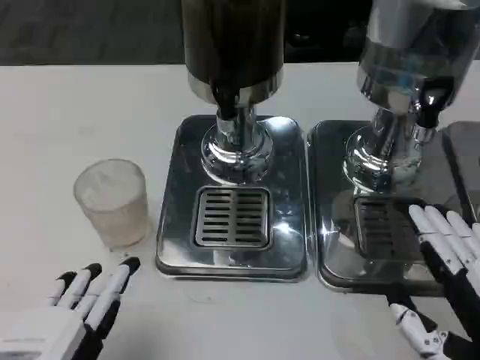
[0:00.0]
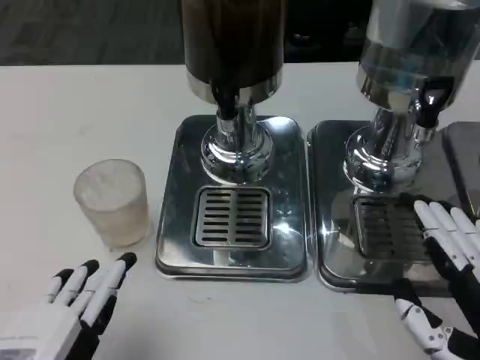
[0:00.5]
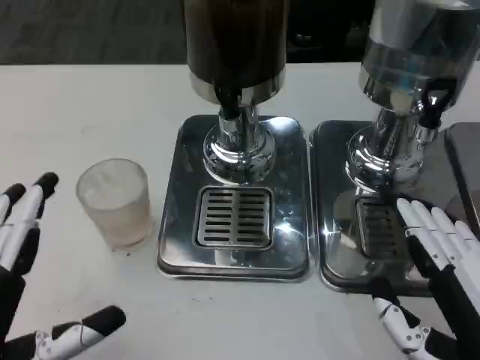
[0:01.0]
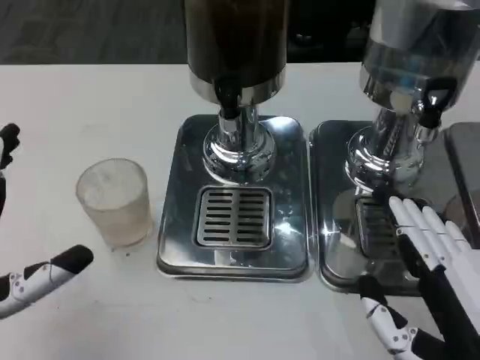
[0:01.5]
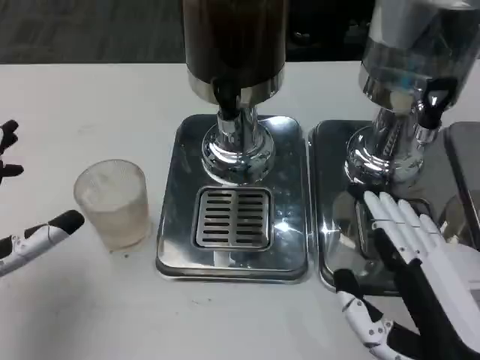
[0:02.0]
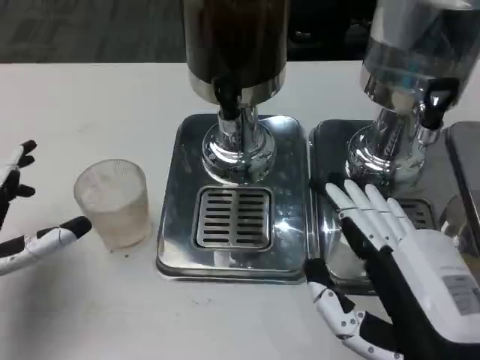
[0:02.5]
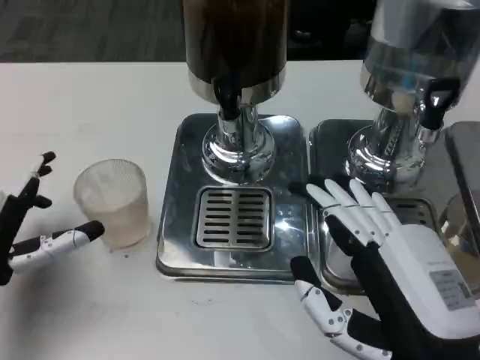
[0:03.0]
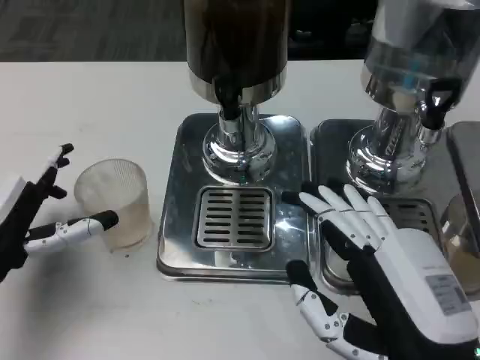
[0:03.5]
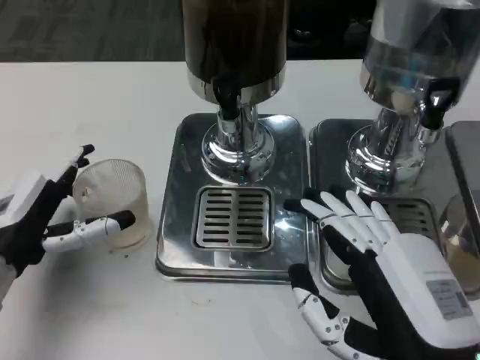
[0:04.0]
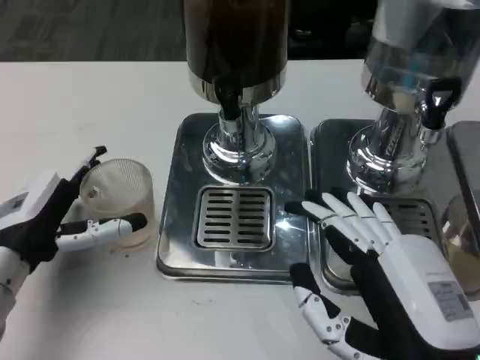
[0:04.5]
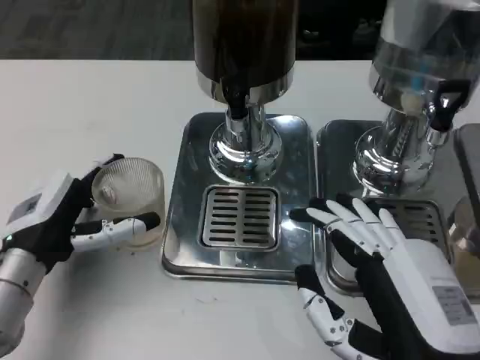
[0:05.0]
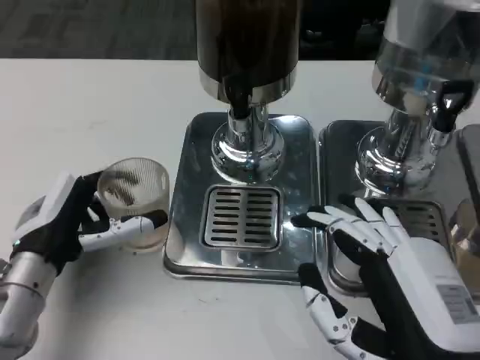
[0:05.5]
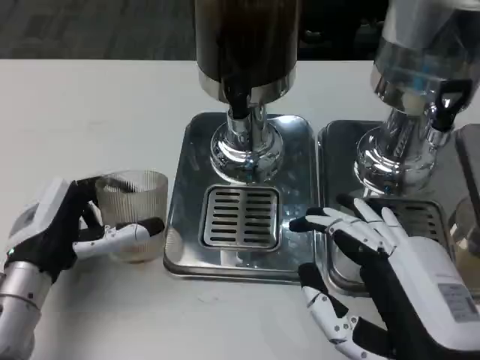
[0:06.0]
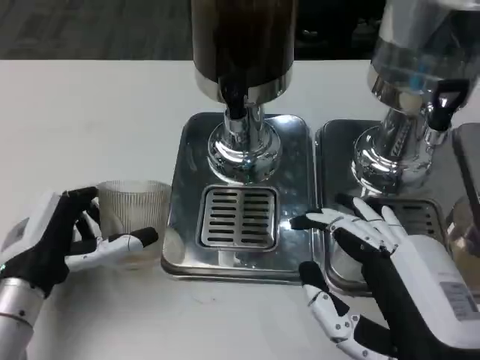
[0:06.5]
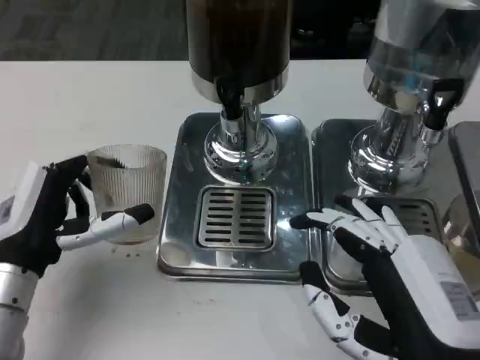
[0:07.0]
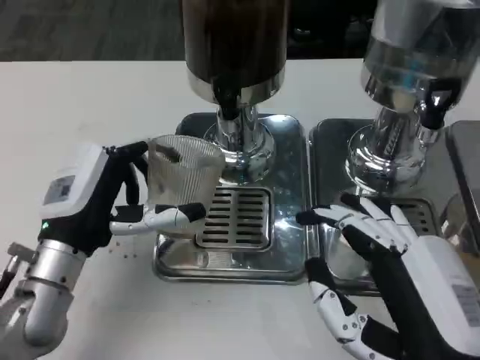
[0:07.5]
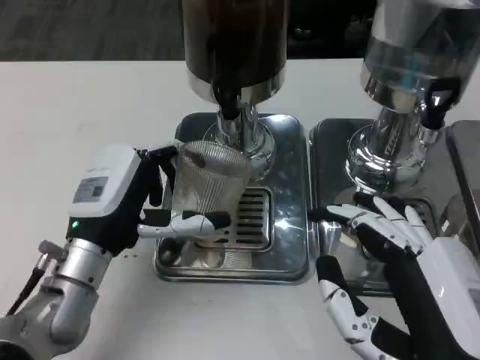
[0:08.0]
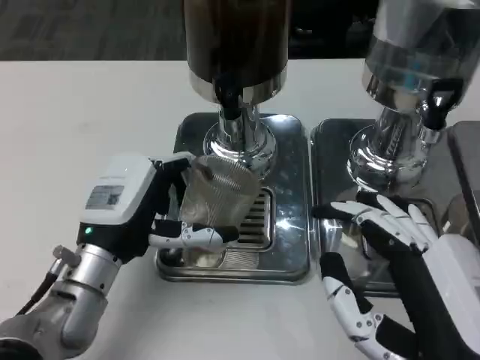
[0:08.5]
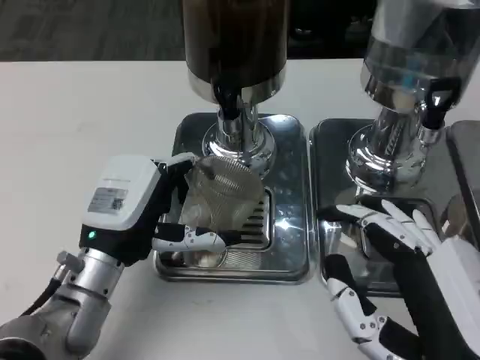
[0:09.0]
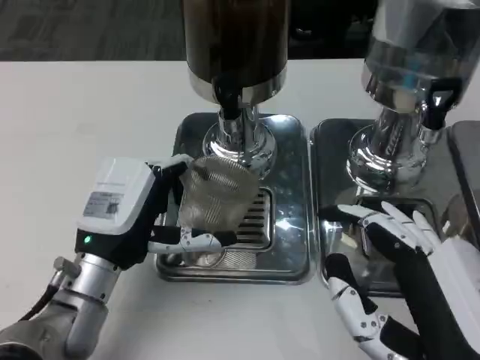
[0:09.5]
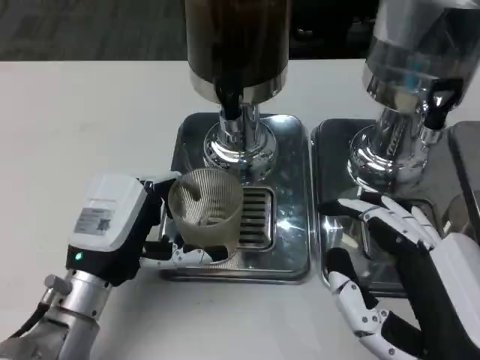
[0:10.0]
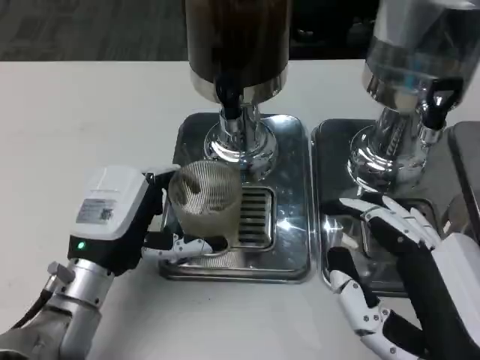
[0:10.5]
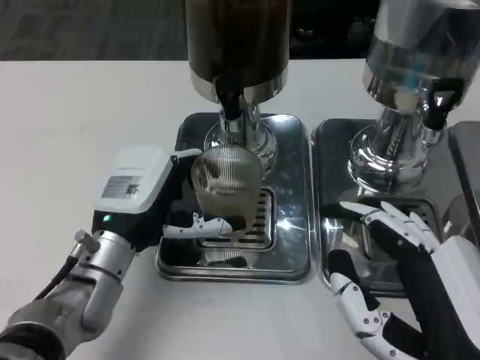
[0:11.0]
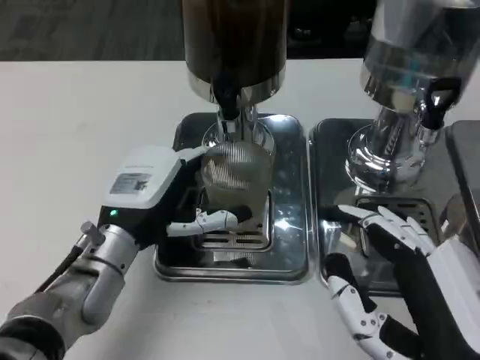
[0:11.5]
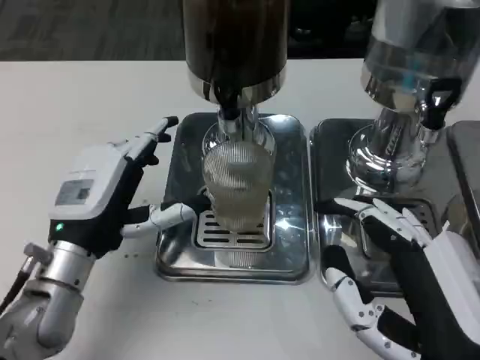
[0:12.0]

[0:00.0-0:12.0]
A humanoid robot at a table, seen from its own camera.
Task of the whole recording: Grasp the cup under the faucet to collect the drink, then remove the cup.
0:00.0 to 0:02.0: The left hand moves forward and to the left, about 15 cm.
0:02.0 to 0:04.0: The left hand shifts roughly 5 cm forward.
0:06.0 to 0:08.0: The left hand moves to the right, about 5 cm.

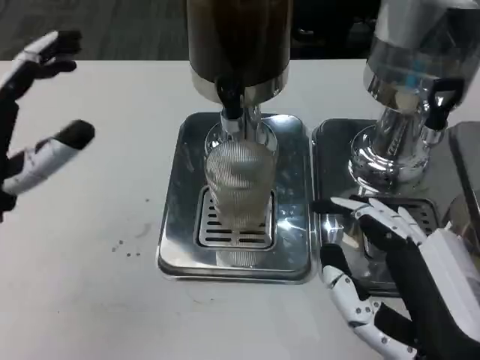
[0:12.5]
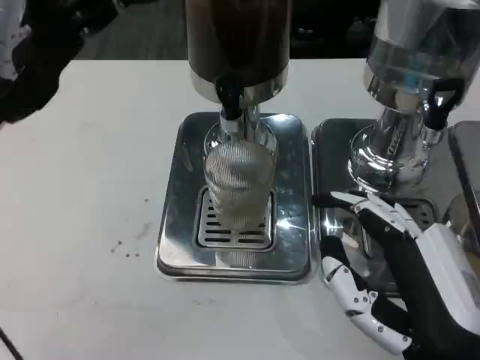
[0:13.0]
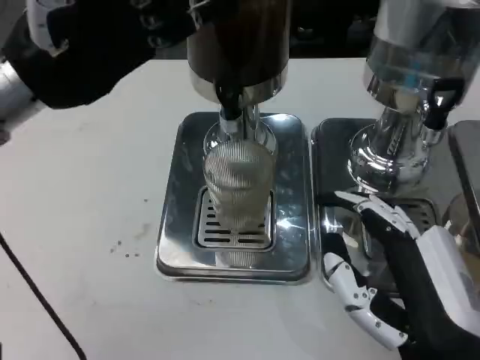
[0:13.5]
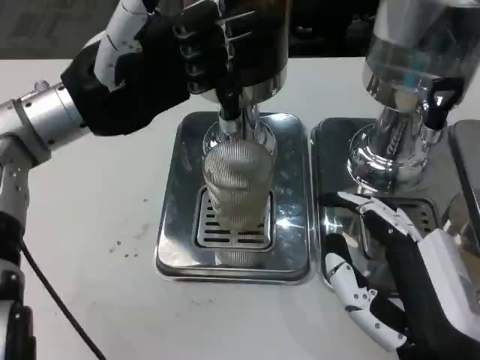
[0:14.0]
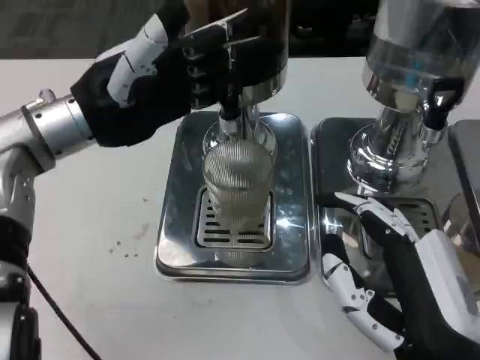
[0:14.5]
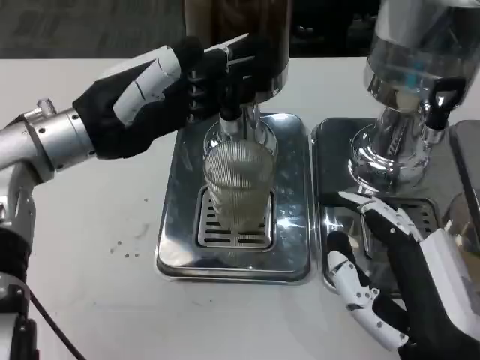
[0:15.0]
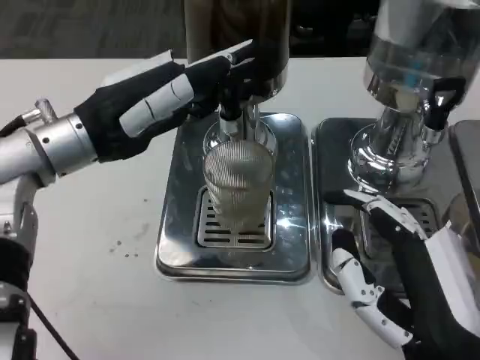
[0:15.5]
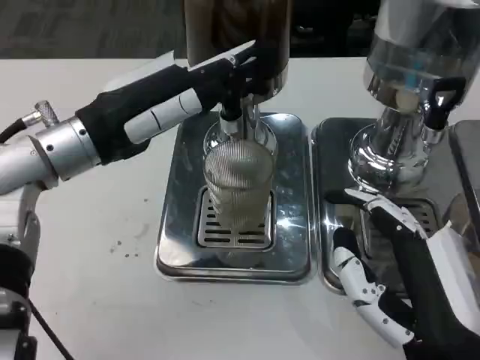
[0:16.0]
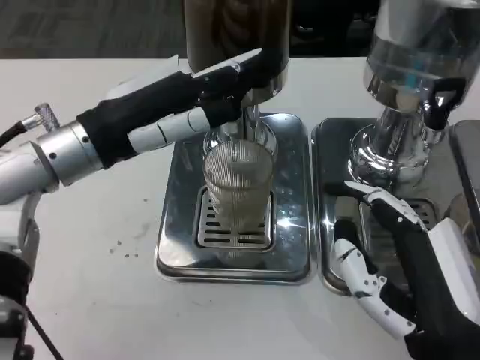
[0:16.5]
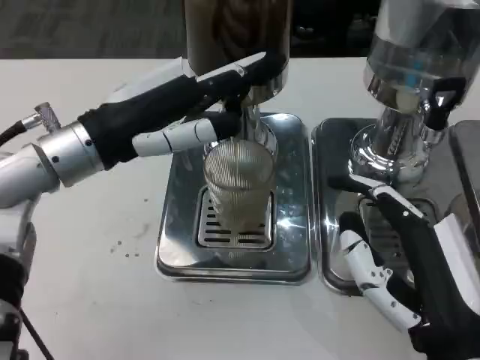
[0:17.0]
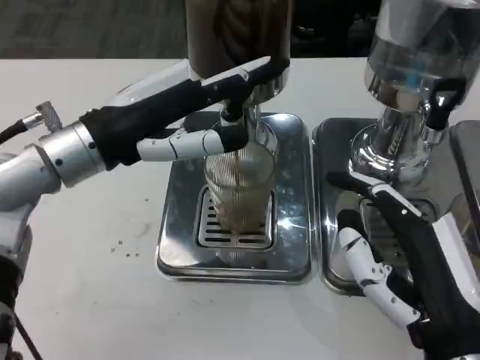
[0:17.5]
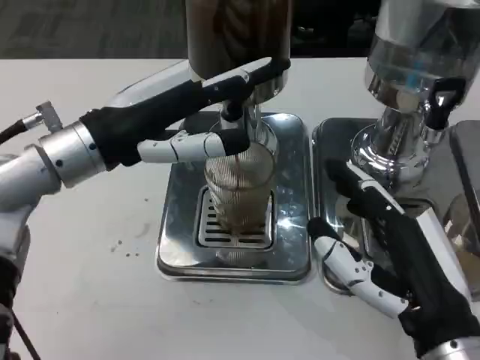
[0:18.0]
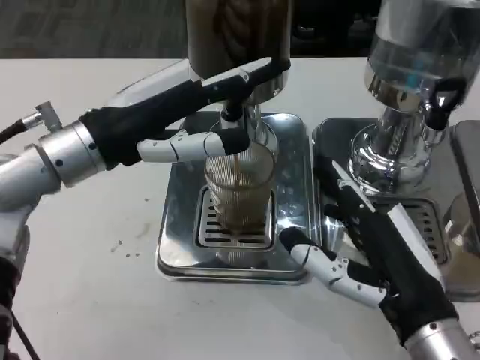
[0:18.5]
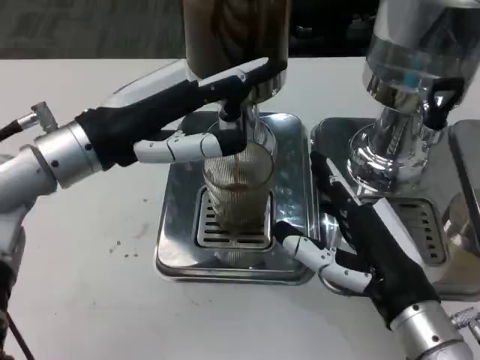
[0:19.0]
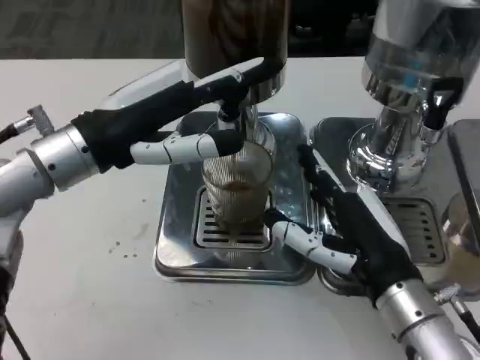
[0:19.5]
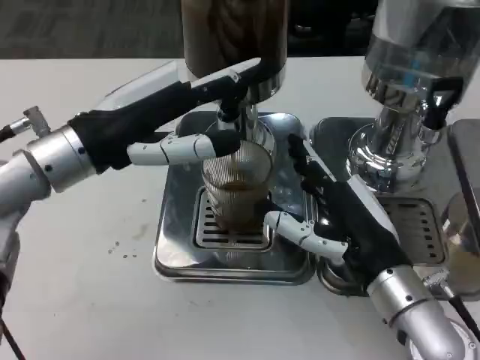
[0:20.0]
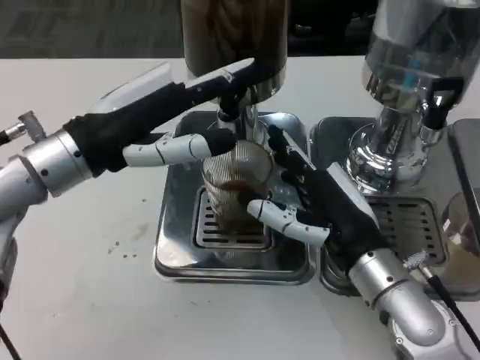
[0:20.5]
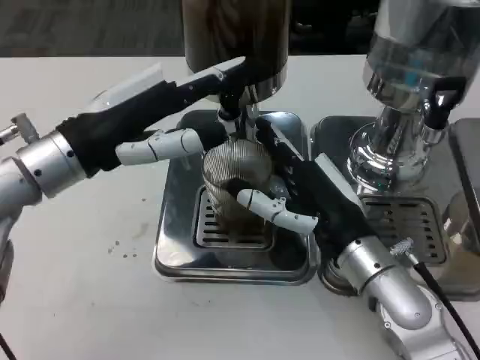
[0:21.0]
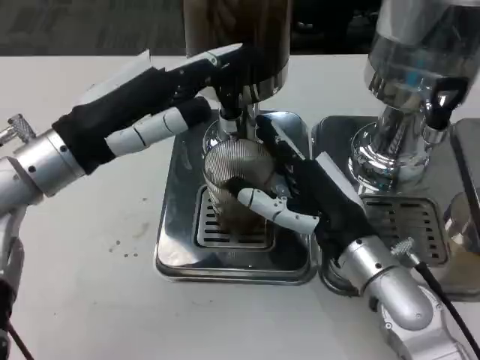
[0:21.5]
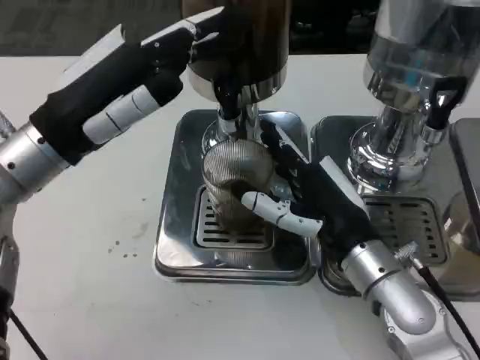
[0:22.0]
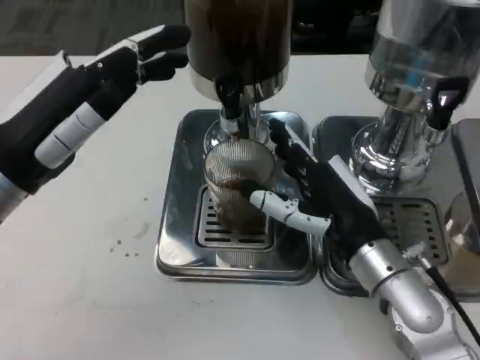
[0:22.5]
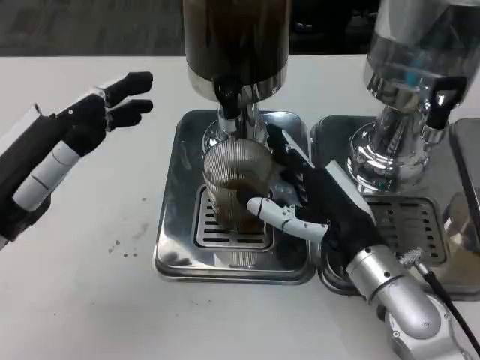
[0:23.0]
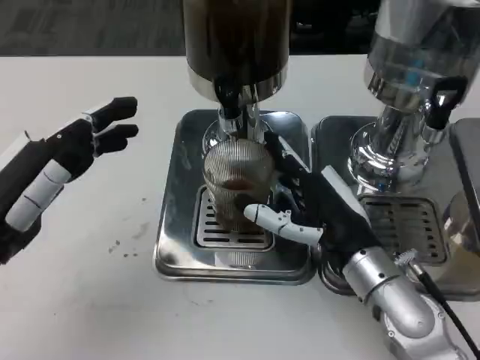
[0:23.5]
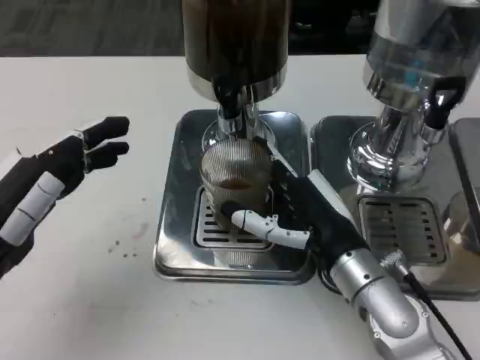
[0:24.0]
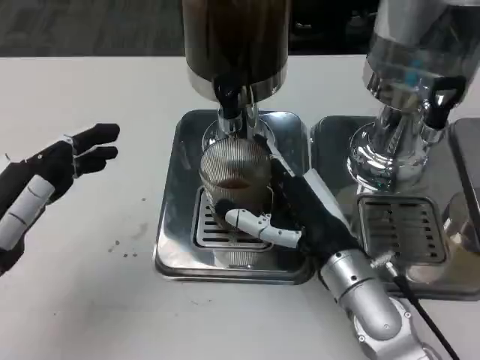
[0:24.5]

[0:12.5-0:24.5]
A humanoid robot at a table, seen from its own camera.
Task of the whole recording: Grasp the cup under the faucet to collect the drink, then remove the cup.
0:12.5 to 0:14.5: The left hand shifts roughly 10 cm forward and upward.
0:18.5 to 0:20.5: The right hand moves forward, approximately 10 cm.
0:20.5 to 0:22.5: The left hand ends up some 5 cm from where it was.
0:22.5 to 0:24.5: The left hand moves backward and downward, roughly 10 cm.

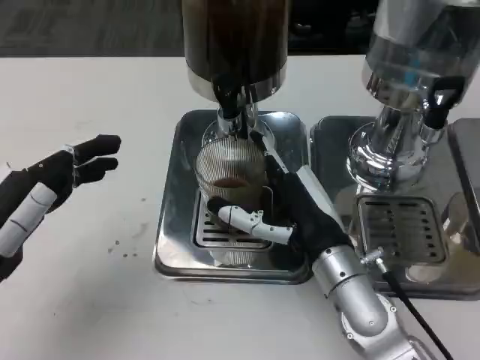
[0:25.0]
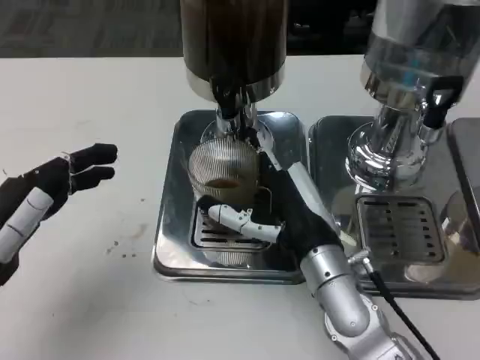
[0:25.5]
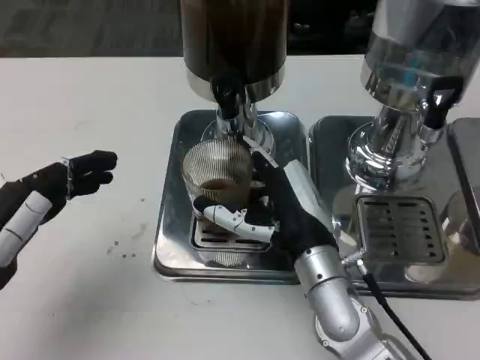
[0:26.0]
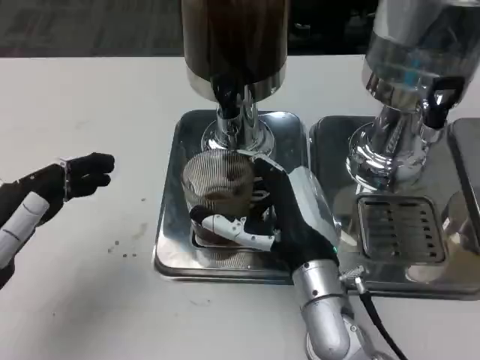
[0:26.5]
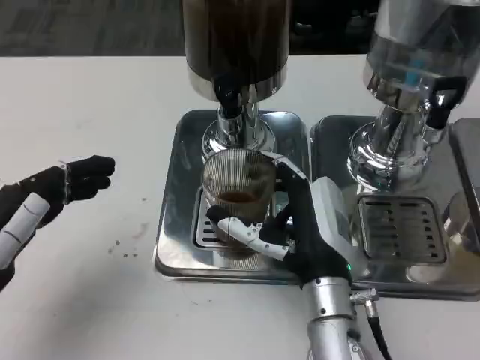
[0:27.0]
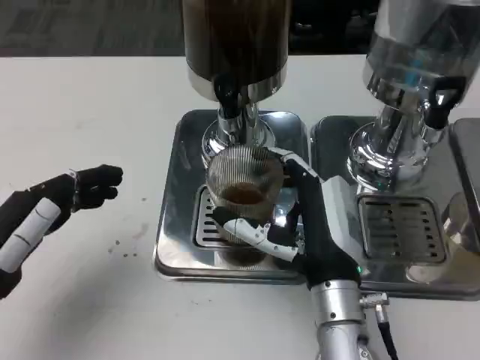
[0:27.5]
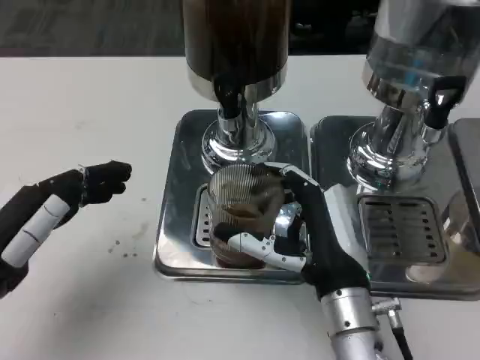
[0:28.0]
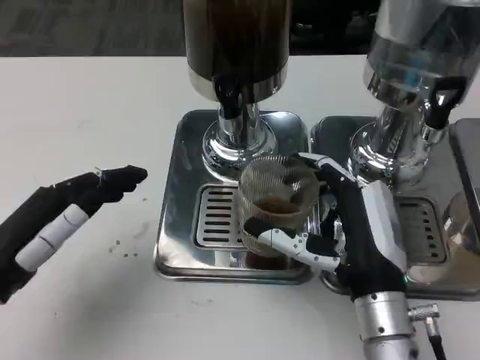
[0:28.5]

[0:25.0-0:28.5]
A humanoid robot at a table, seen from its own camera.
Task of the whole recording: Grasp the cup under the faucet to collect the drink, then remove the cup.
0:27.0 to 0:28.5: The right hand ends up roughly 5 cm from where it was.
